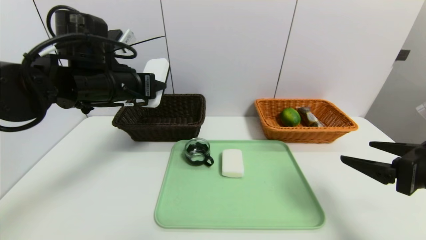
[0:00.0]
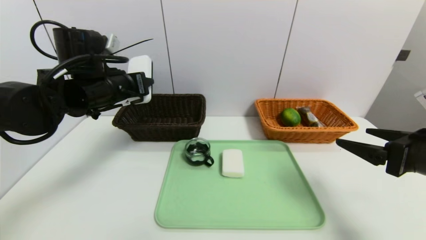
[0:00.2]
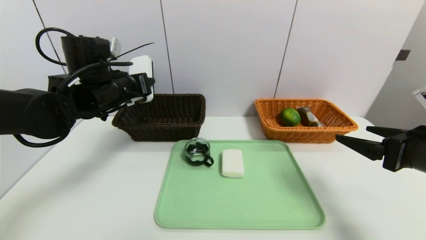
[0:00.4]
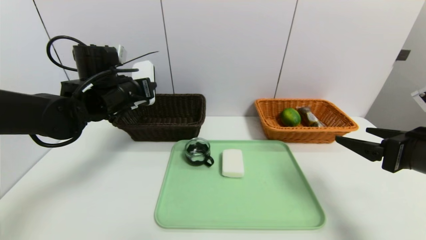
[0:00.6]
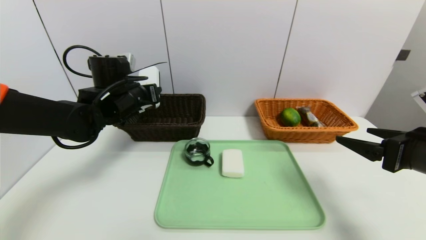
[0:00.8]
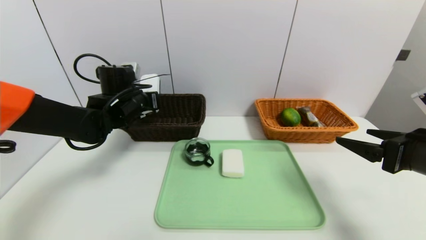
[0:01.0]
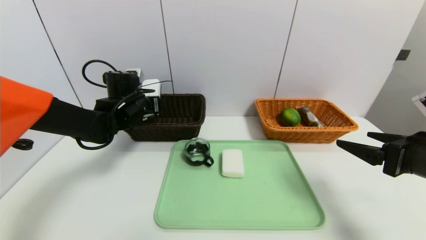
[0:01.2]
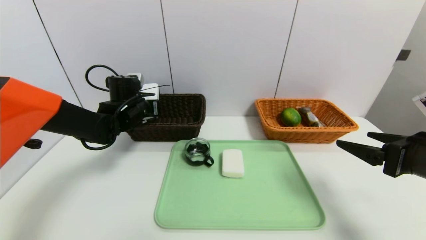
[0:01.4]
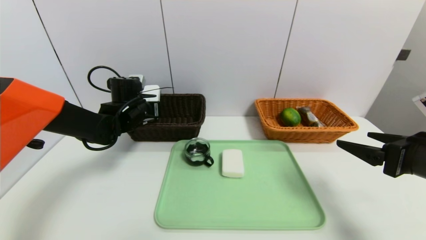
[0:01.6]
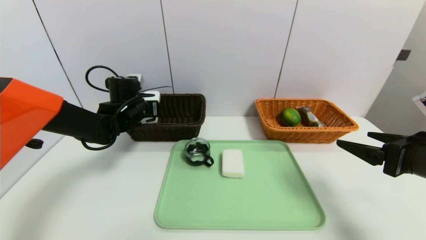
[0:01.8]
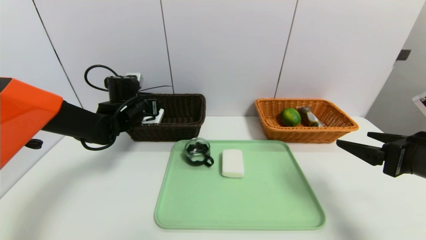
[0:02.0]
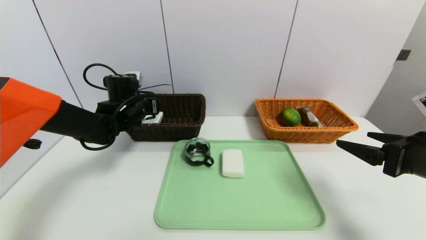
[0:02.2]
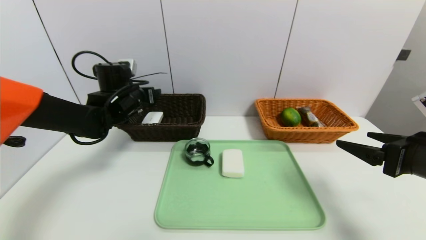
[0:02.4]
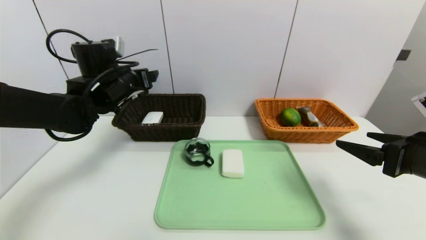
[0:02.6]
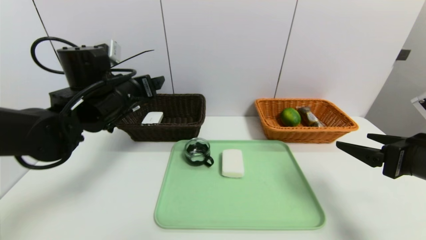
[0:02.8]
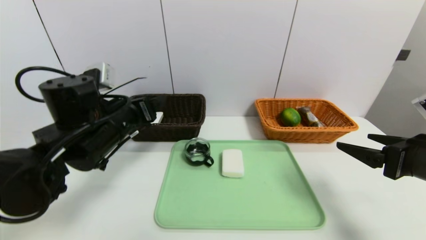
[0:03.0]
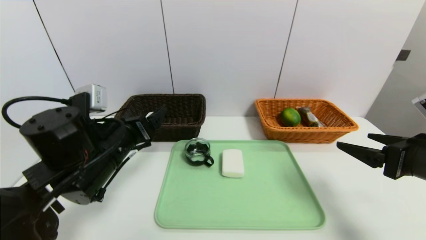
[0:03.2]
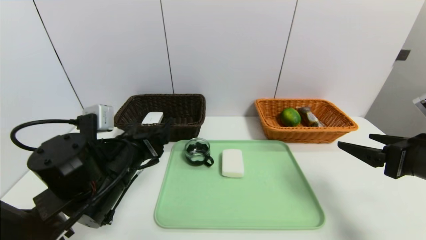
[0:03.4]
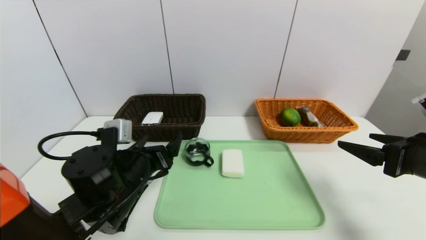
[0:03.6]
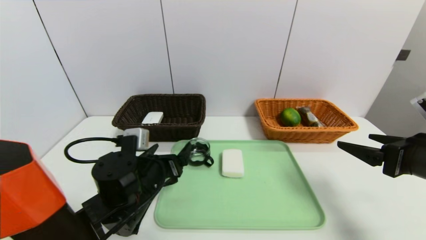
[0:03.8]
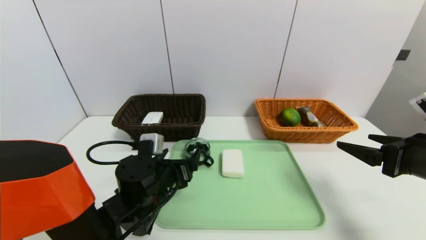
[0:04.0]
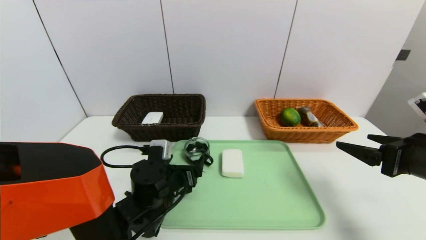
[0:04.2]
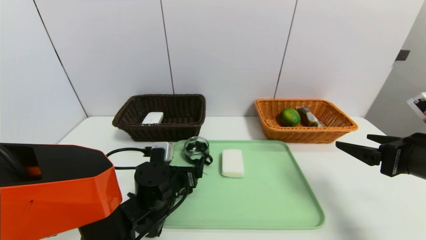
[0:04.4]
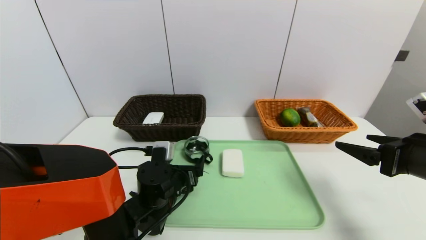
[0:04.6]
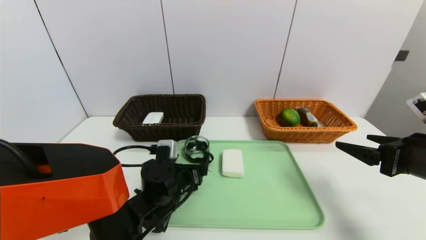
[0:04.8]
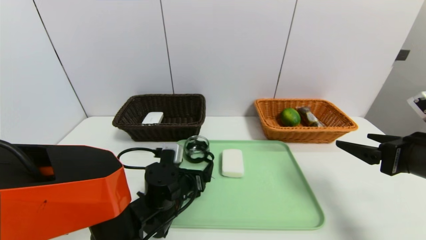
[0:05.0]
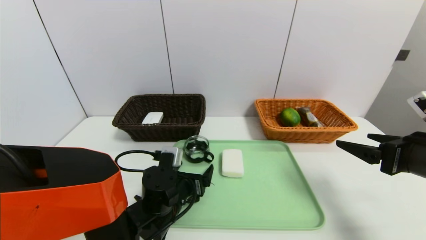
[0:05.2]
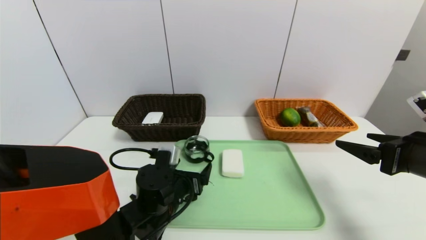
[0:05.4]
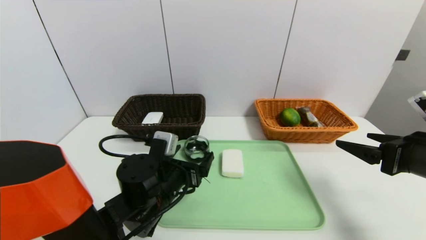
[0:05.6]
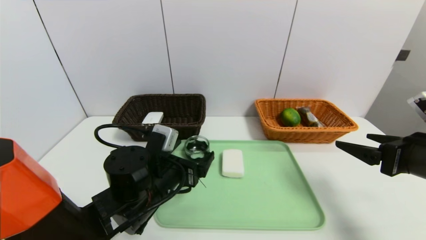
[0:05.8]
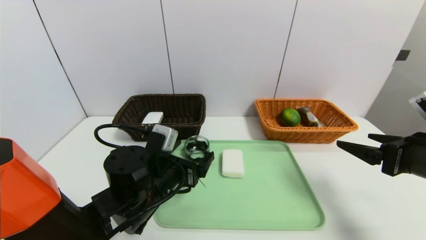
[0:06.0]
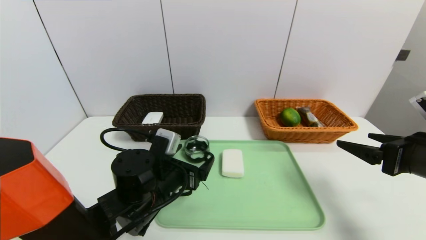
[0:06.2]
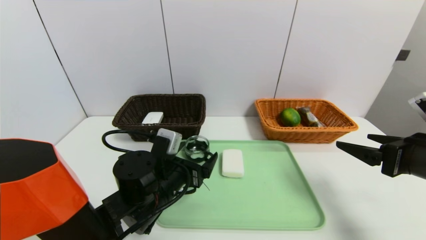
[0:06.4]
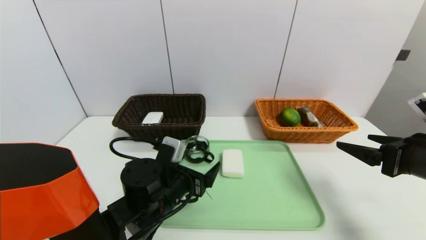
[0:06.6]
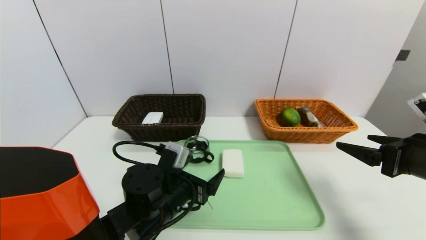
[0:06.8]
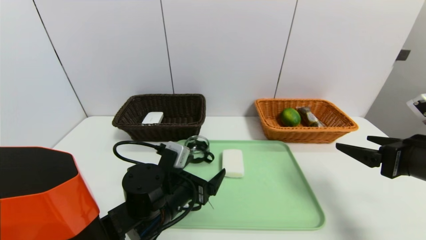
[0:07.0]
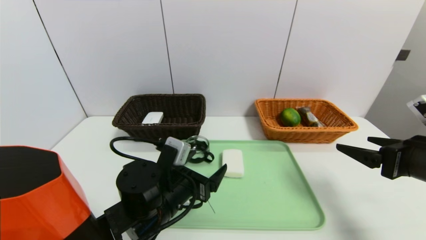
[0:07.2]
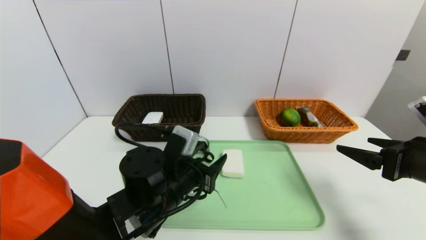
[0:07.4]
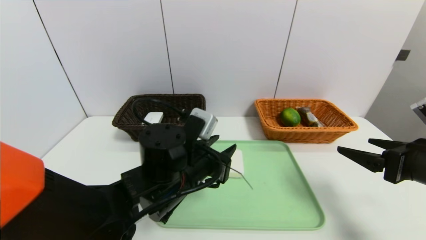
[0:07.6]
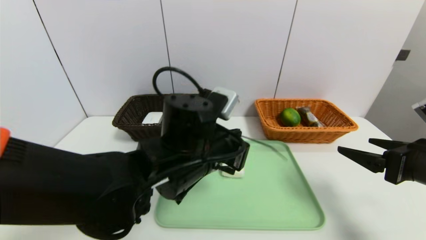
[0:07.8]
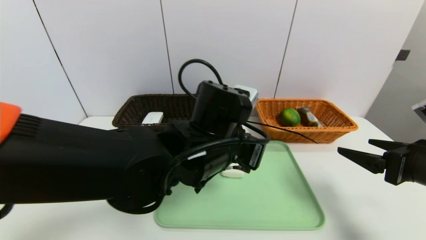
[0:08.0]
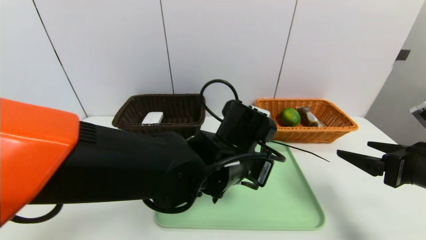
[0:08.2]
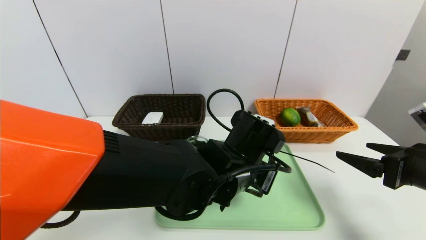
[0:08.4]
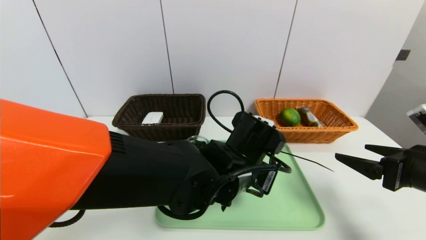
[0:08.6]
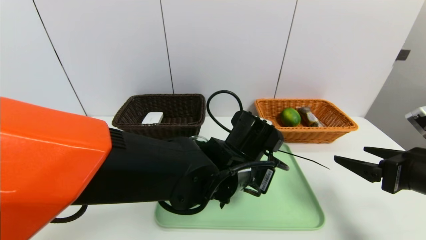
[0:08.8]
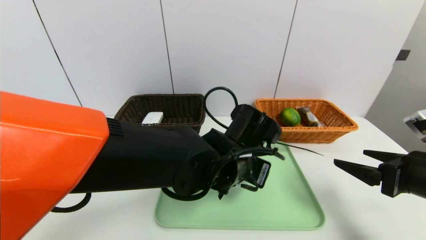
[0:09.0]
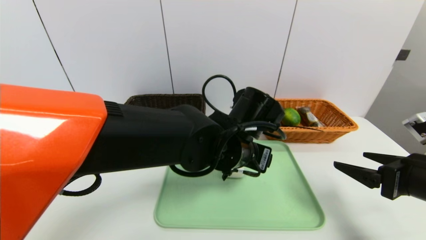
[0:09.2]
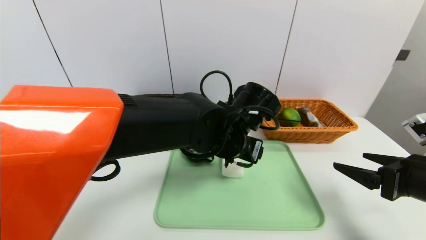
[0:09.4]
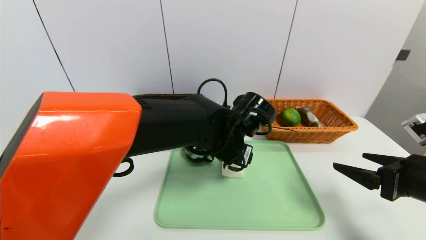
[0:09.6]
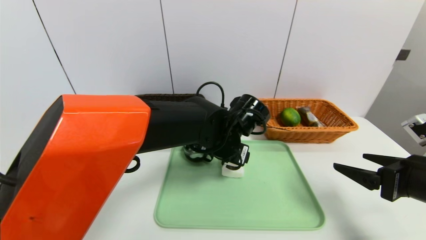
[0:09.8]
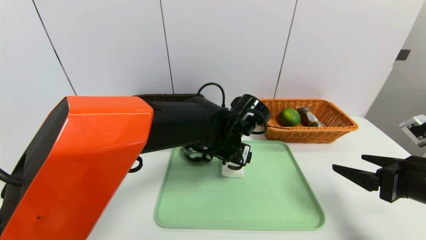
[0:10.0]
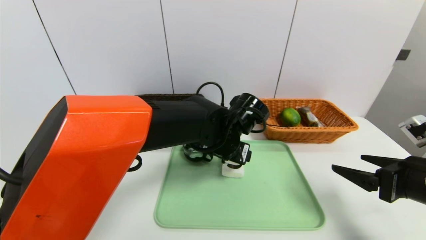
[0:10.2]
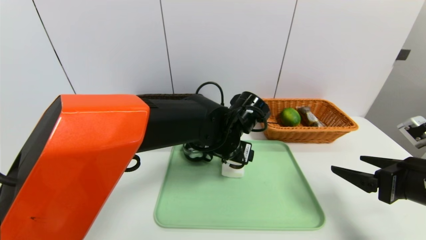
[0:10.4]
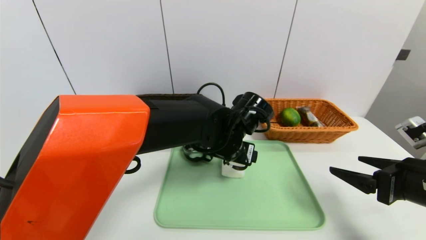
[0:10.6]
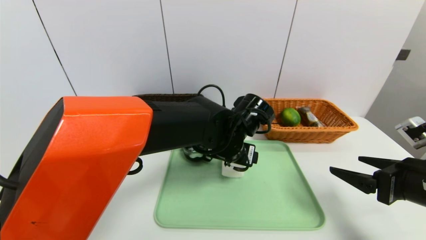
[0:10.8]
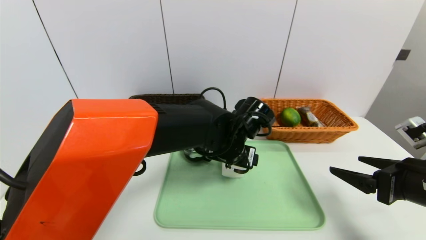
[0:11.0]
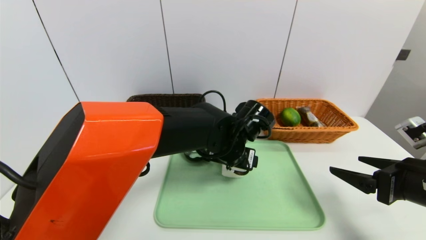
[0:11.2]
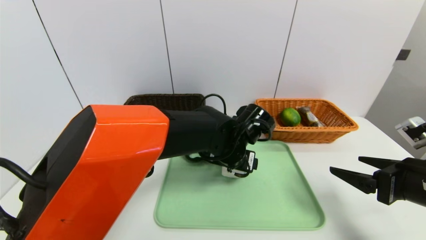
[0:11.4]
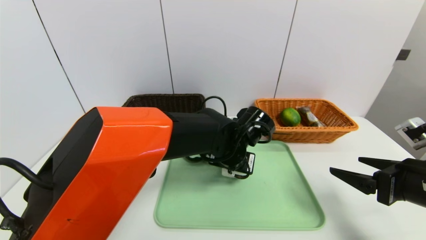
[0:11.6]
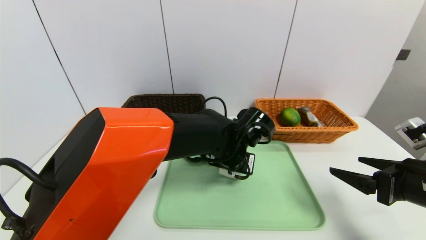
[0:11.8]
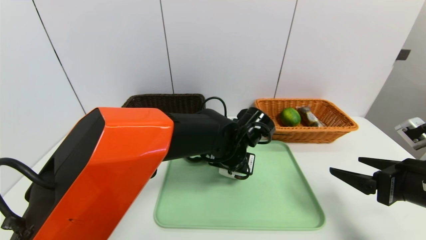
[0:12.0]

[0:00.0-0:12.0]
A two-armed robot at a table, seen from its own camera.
Task of the whole recording: place the food in the right basket with the right gripper, and place the non food items in the left basket with the left gripper.
Step, 0:00.0 to 0:02.2: Grasp the white eraser and put it in the left basket.
0:00.0 to 0:01.6: The left gripper is displaced downward and forward by approximately 15 cm.
0:01.6 to 0:03.0: The left gripper moves backward, roughly 15 cm, and opens its fingers.
0:03.0 to 0:04.4: The left gripper is displaced downward and to the right by roughly 20 cm.
0:04.4 to 0:06.0: The left gripper shifts approximately 5 cm upward.
0:06.0 to 0:07.6: The left gripper travels to the right by approximately 5 cm, and closes.
0:07.6 to 0:09.0: The left gripper goes roughly 10 cm to the right, and closes, then reopens.
0:09.0 to 0:10.4: The left gripper goes some 5 cm forward.
0:10.4 to 0:12.0: The left gripper closes.

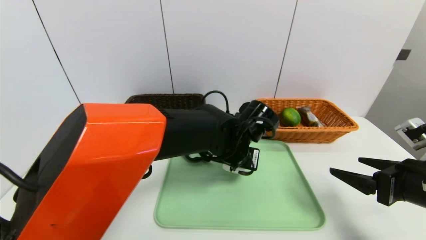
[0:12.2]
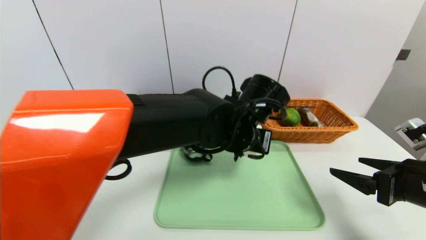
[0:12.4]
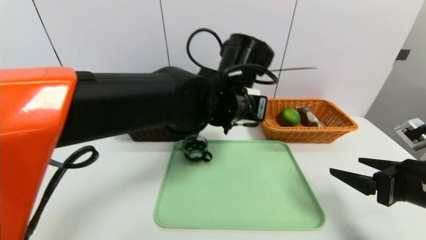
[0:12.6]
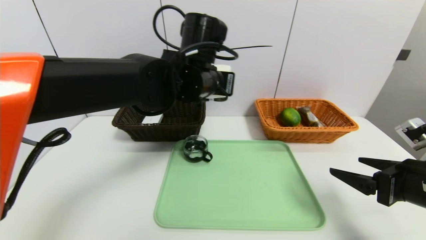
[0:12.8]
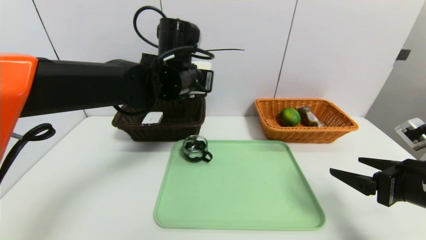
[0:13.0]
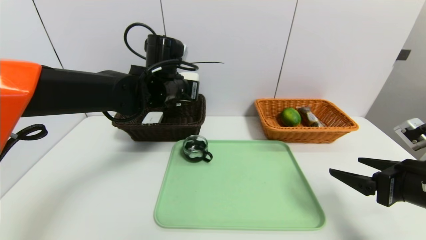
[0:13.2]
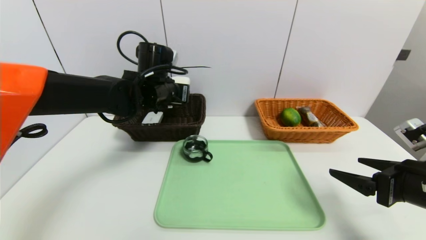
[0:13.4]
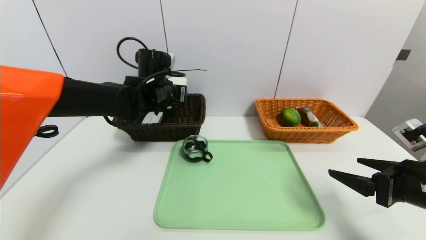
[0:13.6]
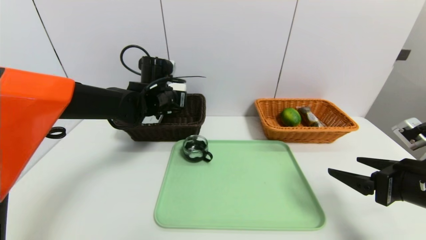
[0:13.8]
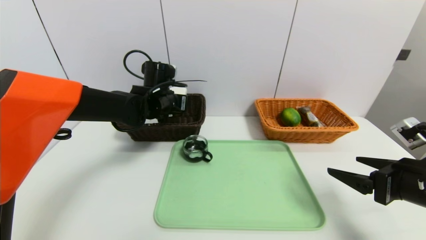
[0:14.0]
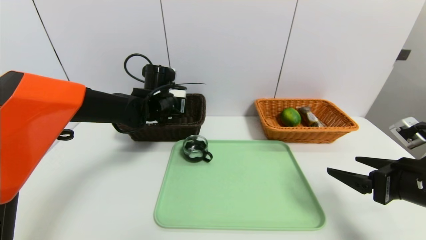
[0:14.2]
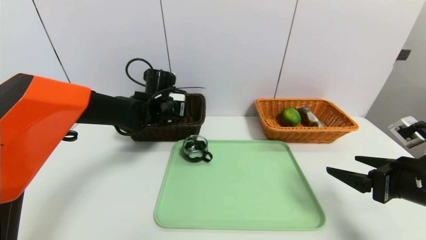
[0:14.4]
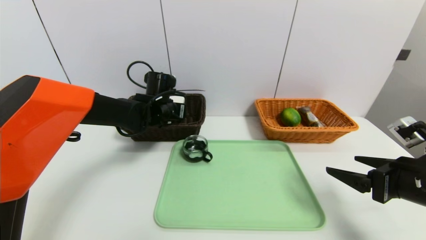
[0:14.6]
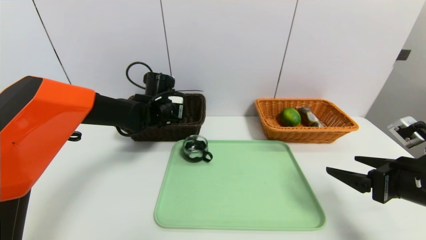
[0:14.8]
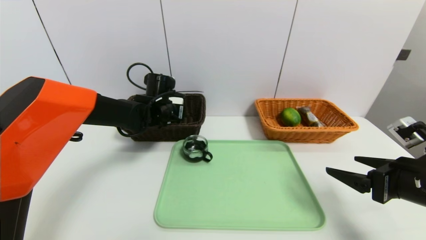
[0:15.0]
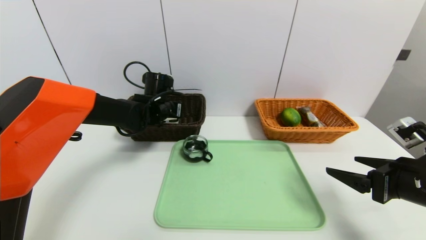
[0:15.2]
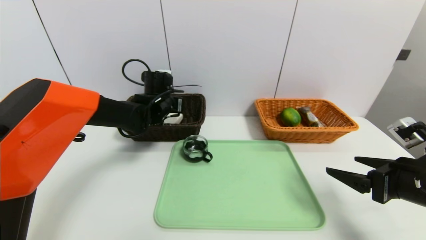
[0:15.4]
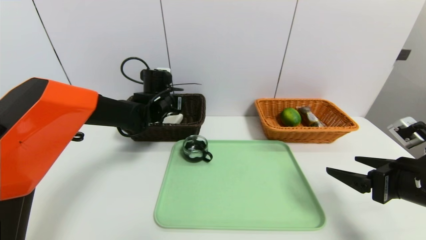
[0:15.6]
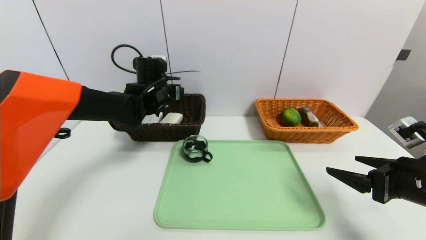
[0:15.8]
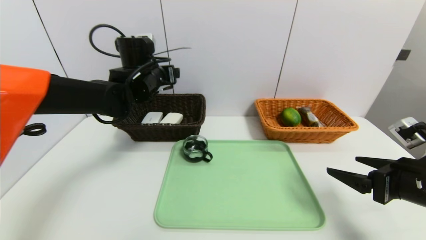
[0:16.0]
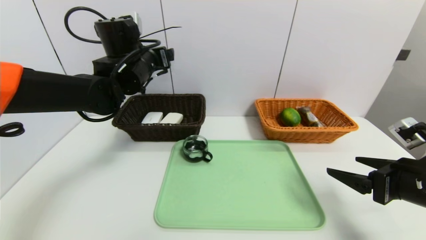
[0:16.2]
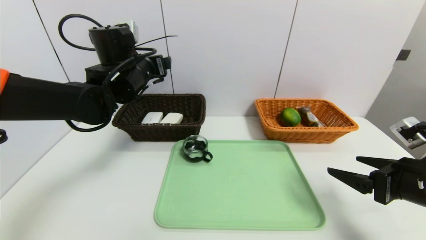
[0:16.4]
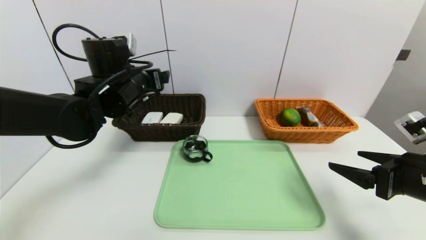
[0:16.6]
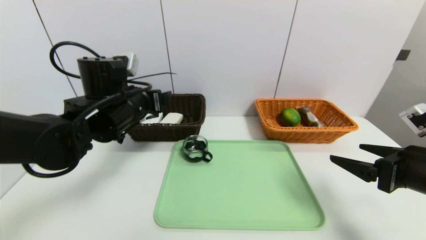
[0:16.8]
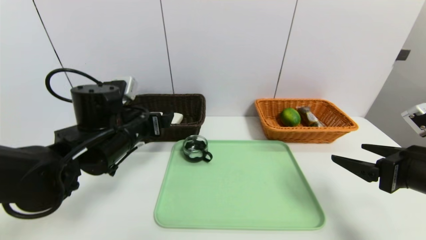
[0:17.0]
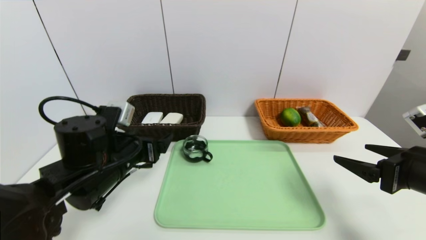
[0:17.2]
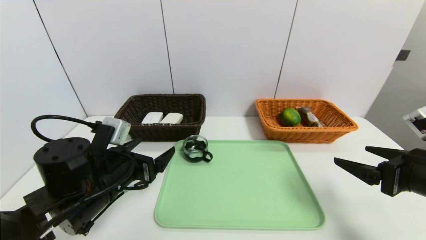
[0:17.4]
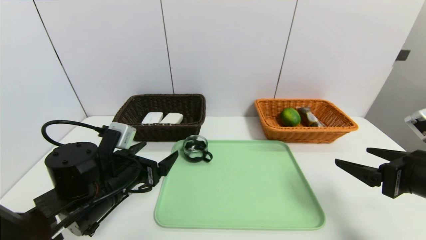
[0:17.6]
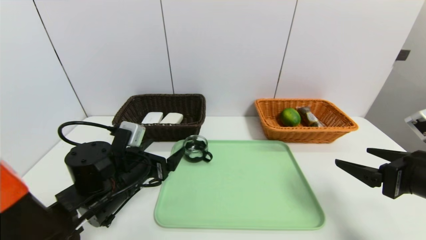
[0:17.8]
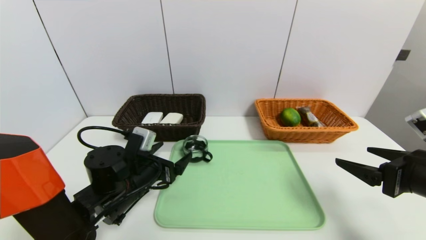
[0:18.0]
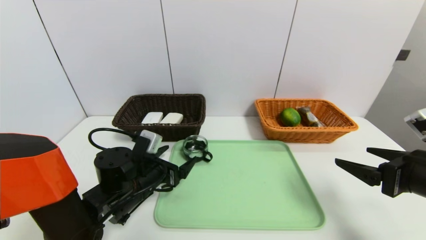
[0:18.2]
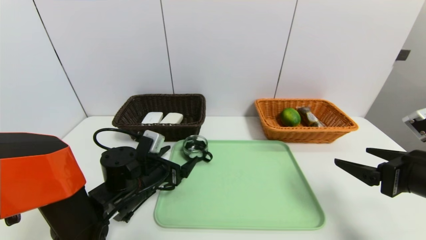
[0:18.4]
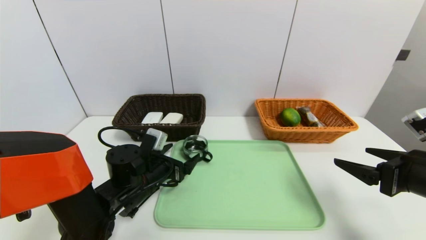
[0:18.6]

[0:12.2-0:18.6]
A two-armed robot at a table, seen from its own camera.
Task of the whole recording: place the food in the right basket with the right gripper, and place the non food items in the left basket with the left gripper.
Step, 0:12.2 to 0:15.8: Grasp the soap and put it in the left basket.
0:12.2 to 0:13.8: The left gripper goes about 20 cm to the left and forward.
0:13.8 to 0:15.4: The grippers stay close to where they were, moving slightly.
0:15.4 to 0:17.0: The left gripper travels backward by roughly 15 cm.
0:17.0 to 0:18.6: The left gripper travels downward by roughly 10 cm.
